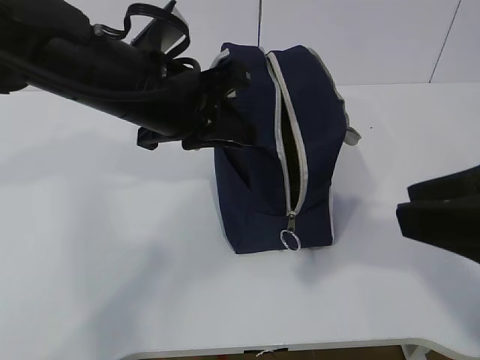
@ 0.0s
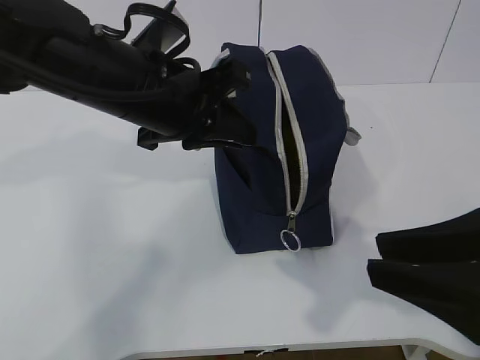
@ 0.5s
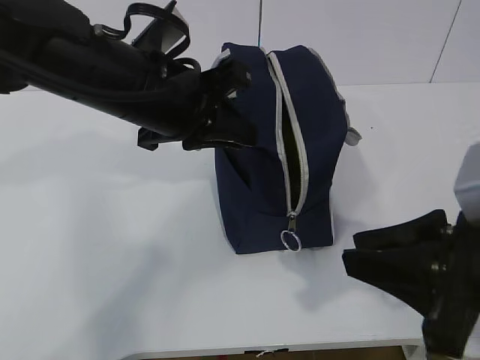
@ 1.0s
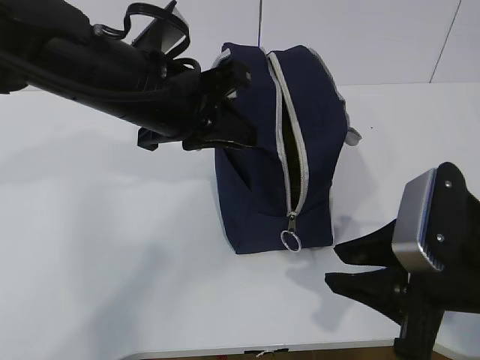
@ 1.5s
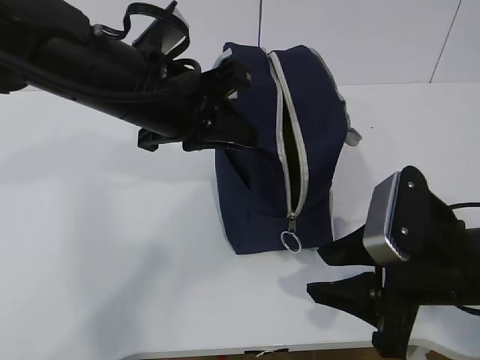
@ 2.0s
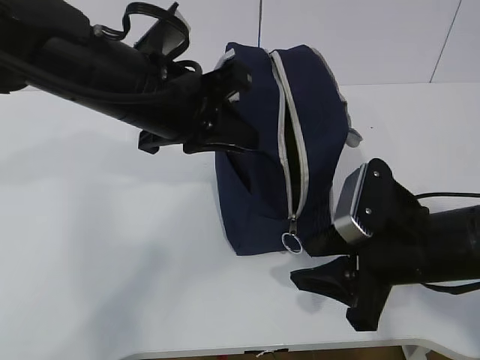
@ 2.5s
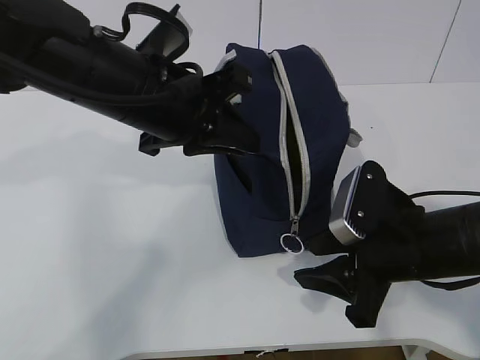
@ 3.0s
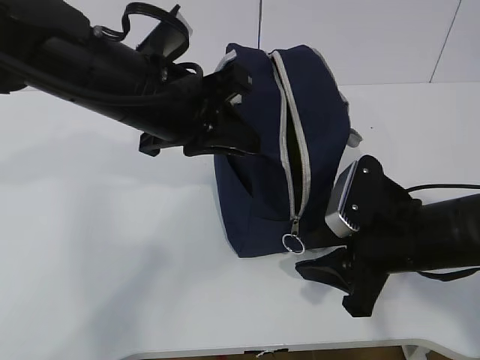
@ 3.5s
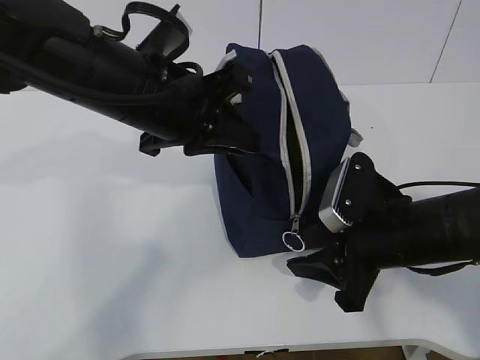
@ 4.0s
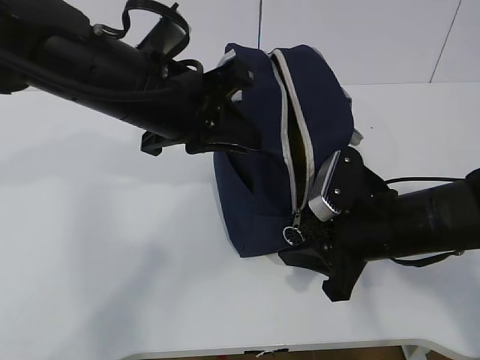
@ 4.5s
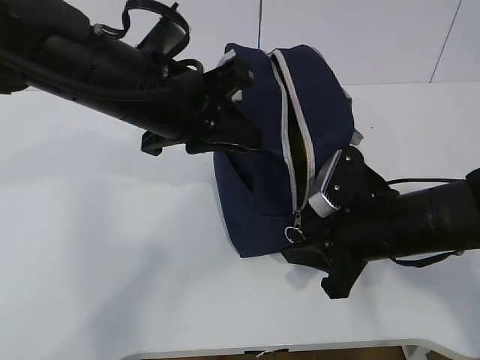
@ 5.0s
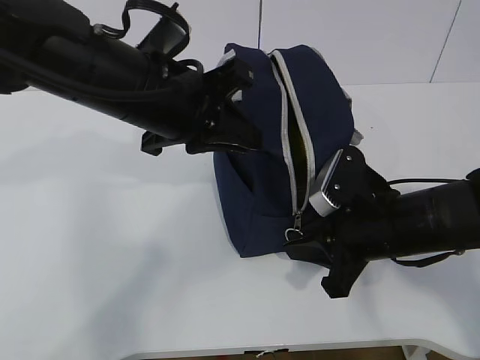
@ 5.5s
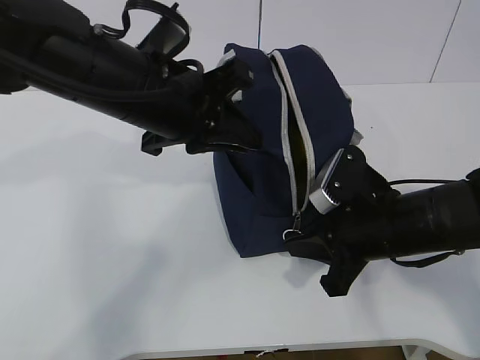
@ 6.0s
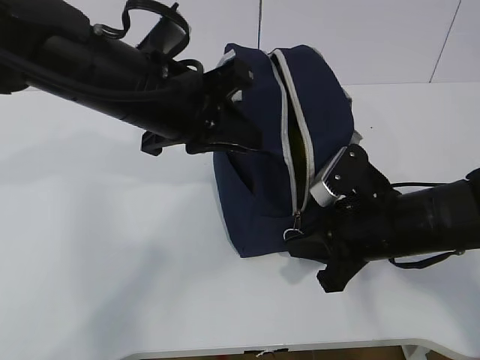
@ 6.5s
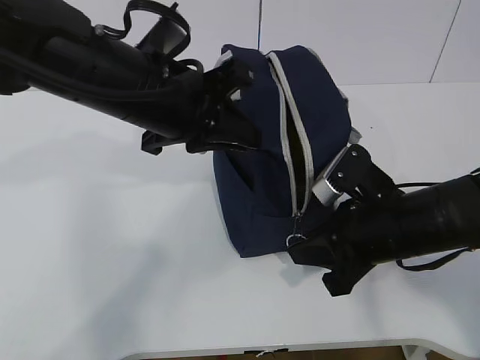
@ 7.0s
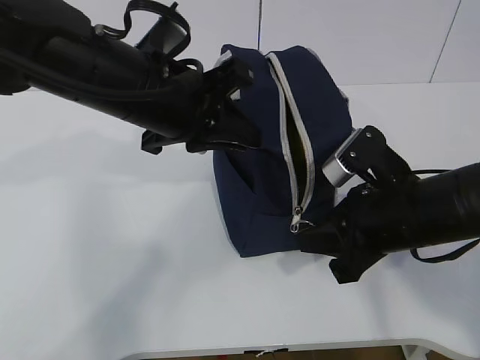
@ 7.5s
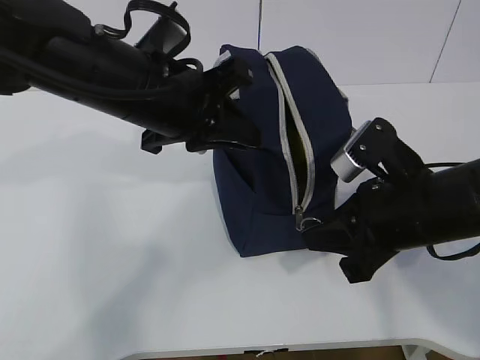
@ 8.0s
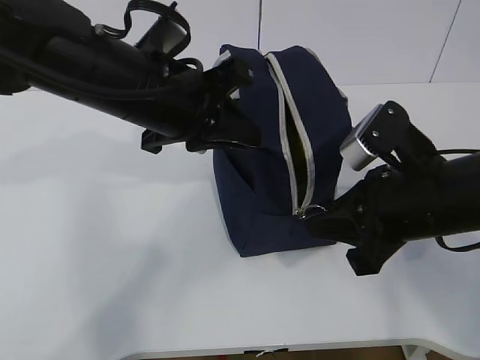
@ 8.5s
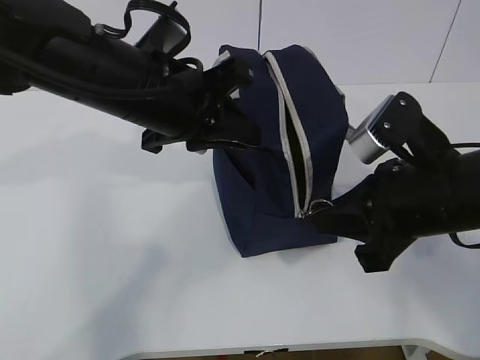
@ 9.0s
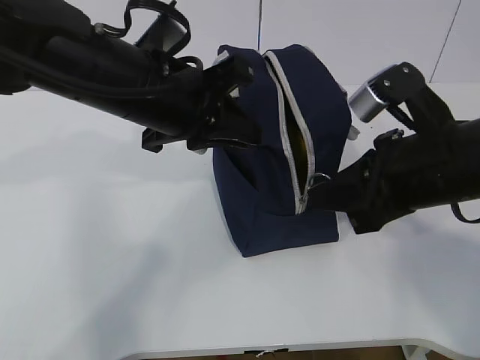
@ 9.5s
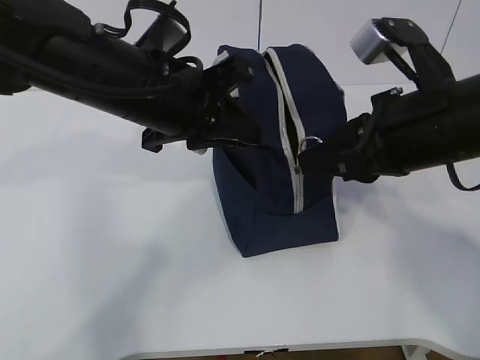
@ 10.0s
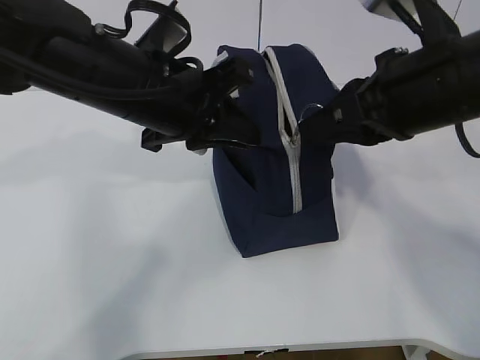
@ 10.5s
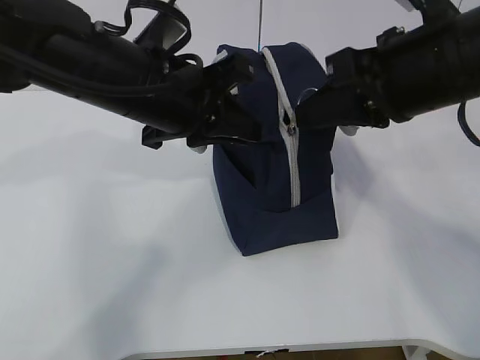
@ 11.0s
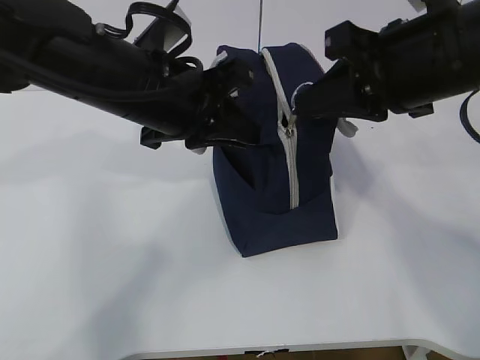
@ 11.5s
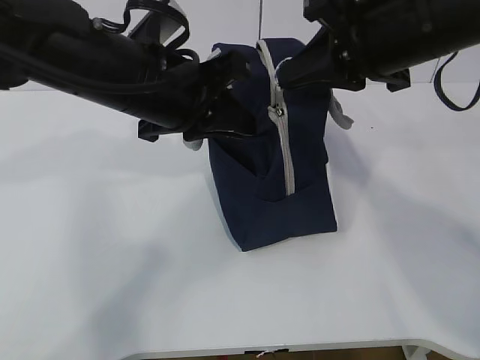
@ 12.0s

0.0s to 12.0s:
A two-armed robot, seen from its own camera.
0.0s to 2.0s: The right gripper moves downward and forward, roughly 15 cm.
2.0s to 4.0s: The right gripper is displaced forward by about 5 cm.
4.0s to 6.0s: The right gripper closes its fingers.
6.0s to 8.0s: The right gripper changes place by some 5 cm.
8.0s to 10.0s: The right gripper heads upward, covering about 10 cm.
10.0s to 12.0s: The right gripper heads upward, covering roughly 5 cm.

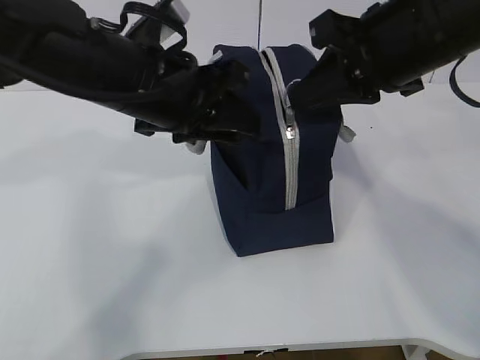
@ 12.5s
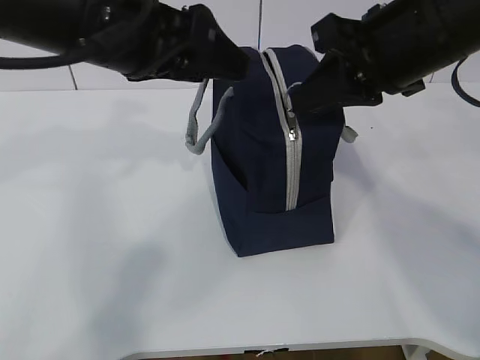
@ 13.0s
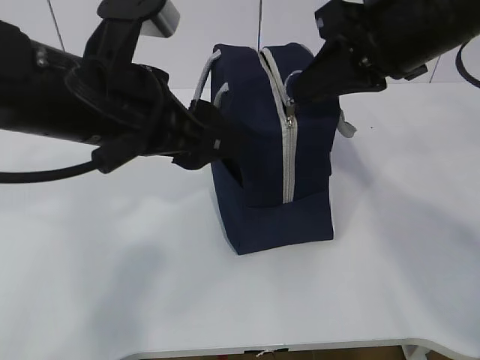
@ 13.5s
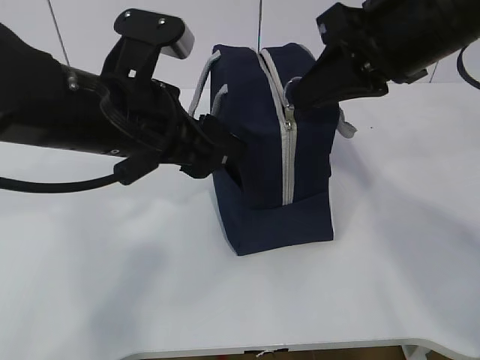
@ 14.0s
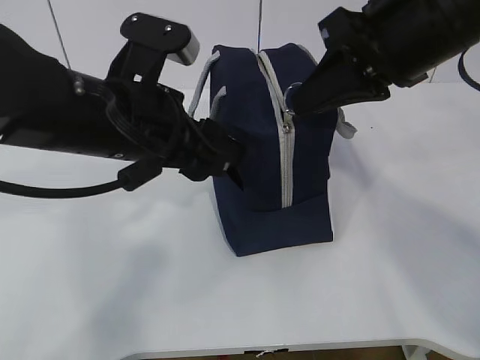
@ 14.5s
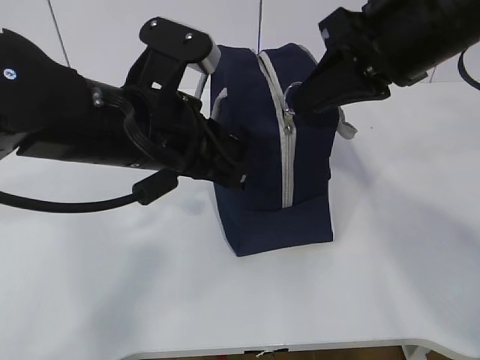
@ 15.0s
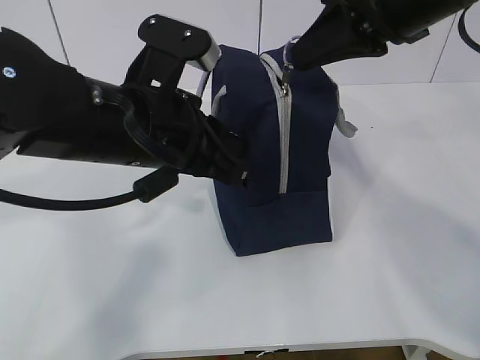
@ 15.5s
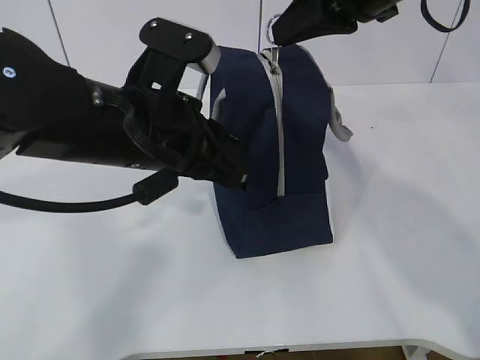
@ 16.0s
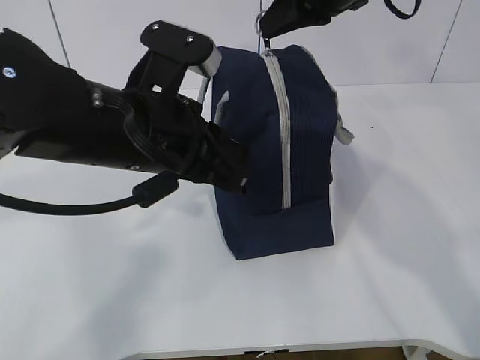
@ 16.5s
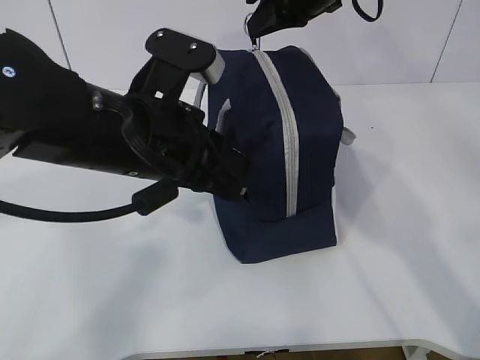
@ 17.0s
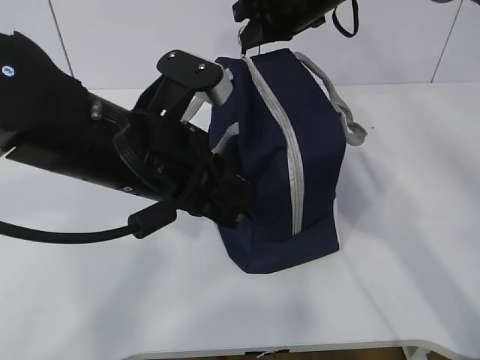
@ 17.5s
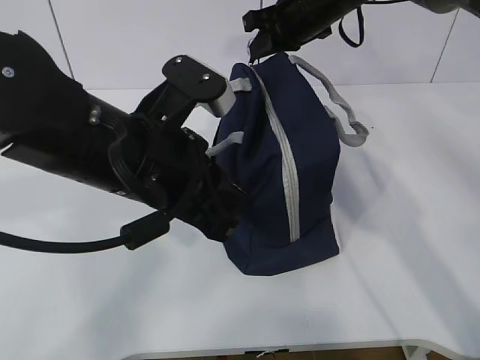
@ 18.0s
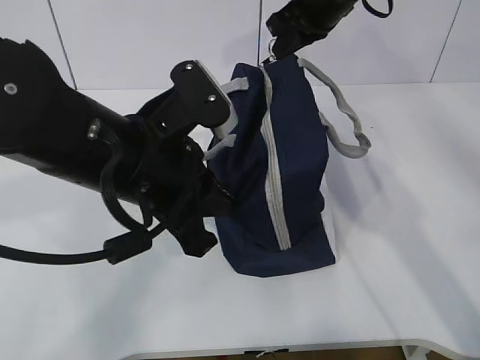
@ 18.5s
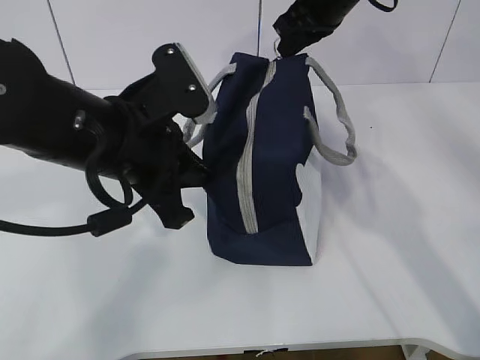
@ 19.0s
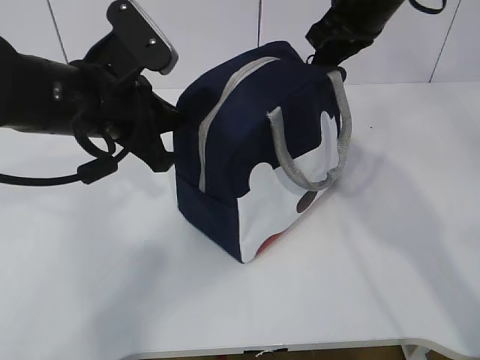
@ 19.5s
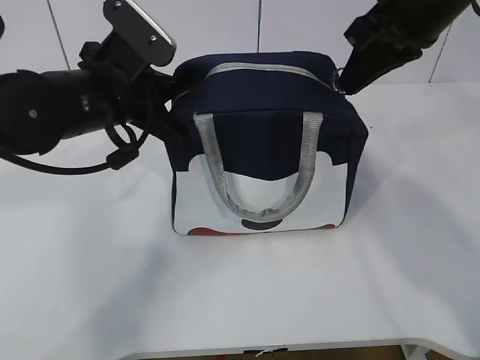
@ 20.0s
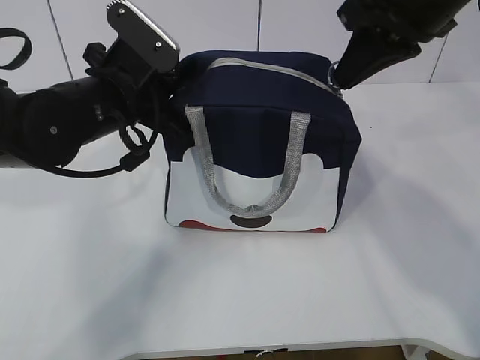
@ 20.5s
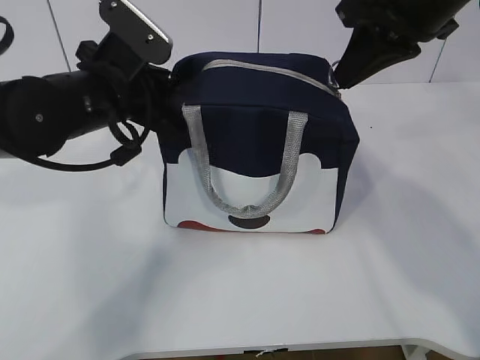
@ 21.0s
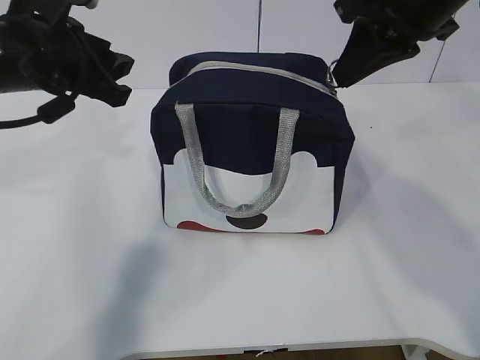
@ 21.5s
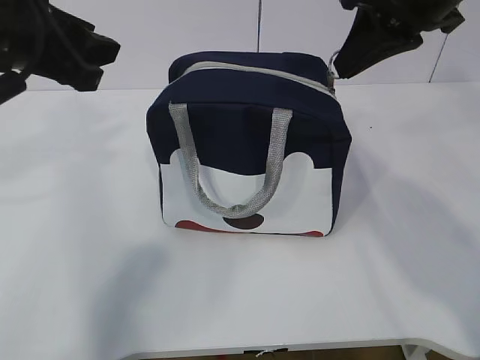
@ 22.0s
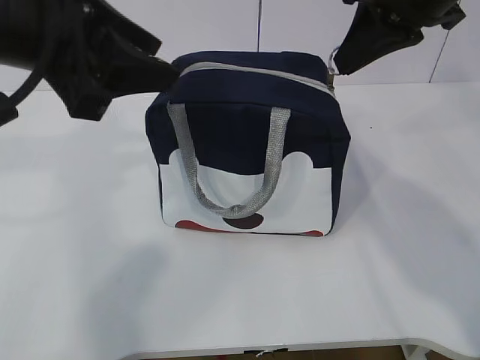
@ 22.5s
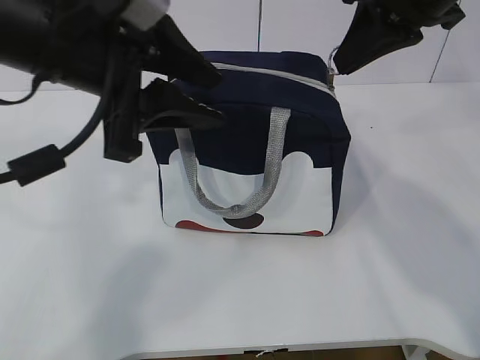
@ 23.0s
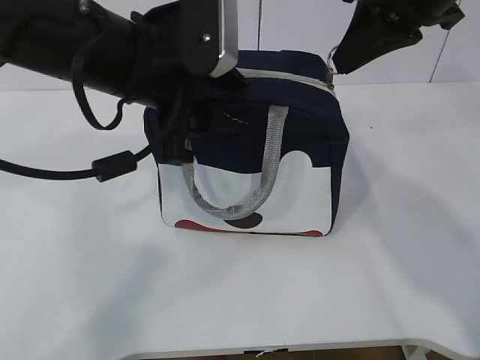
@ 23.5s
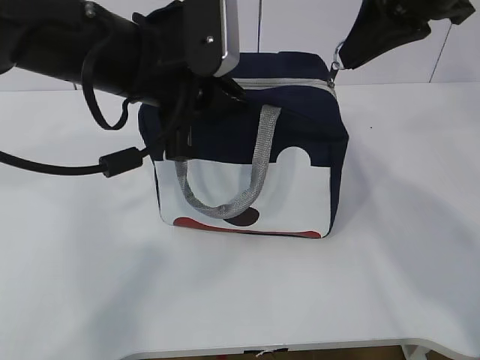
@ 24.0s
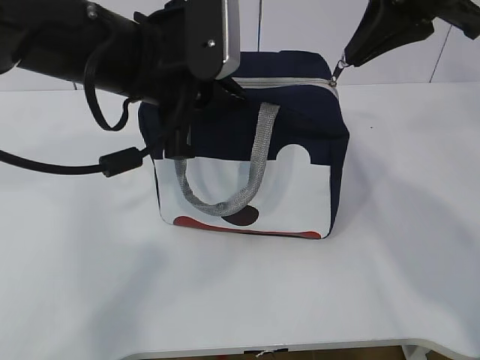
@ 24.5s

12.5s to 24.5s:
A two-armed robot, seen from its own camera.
Step, 14.0s to 14.5s: Grab the lunch bag with your left hand.
12.5s to 14.5s: The left gripper moves some 5 cm upward and comes back.
14.5s to 16.5s: The left gripper closes its fingers, while the right gripper travels forward by about 10 cm.
16.5s to 18.5s: The right gripper is displaced forward by roughly 10 cm.
18.5s to 20.5s: The left gripper shifts some 10 cm forward, while the right gripper is displaced backward by roughly 15 cm.
20.5s to 22.5s: The left gripper heads upward and backward, covering roughly 15 cm, and opens.
22.5s to 24.5s: The left gripper is displaced to the right, downward and forward by roughly 10 cm, and closes up.

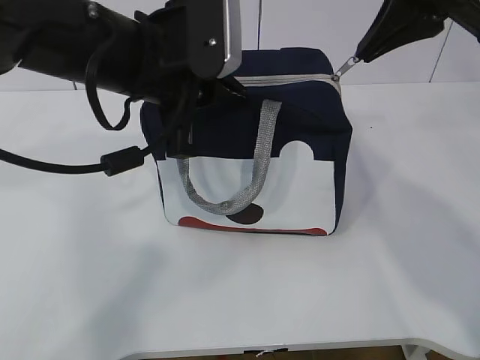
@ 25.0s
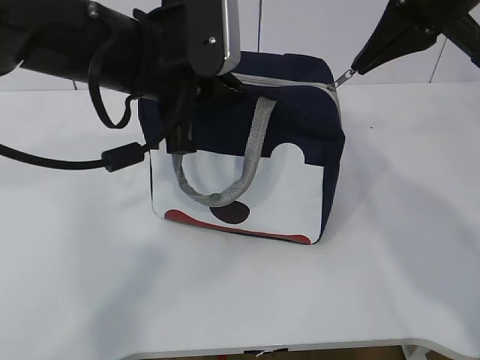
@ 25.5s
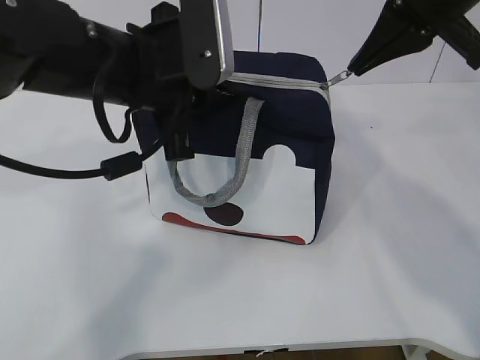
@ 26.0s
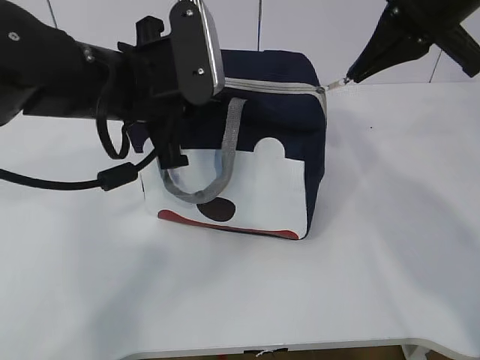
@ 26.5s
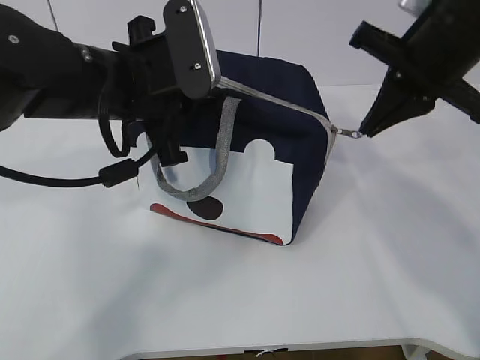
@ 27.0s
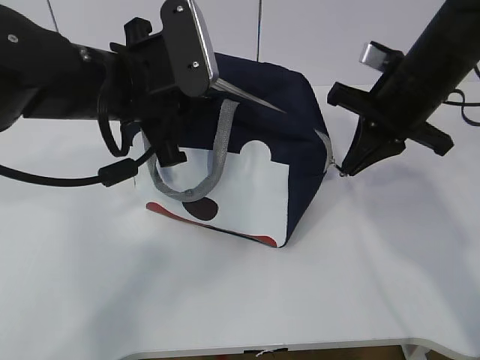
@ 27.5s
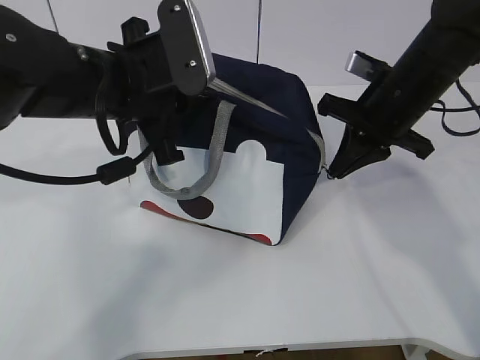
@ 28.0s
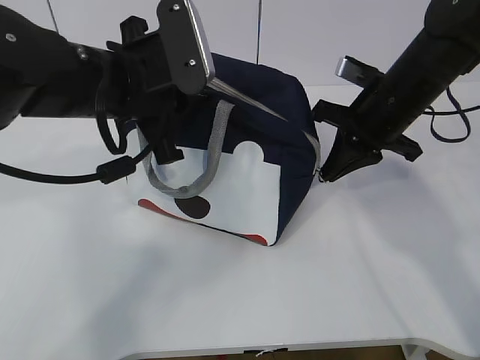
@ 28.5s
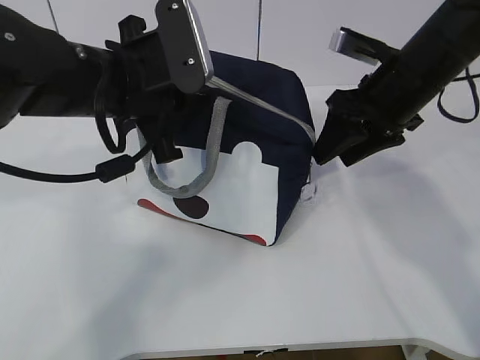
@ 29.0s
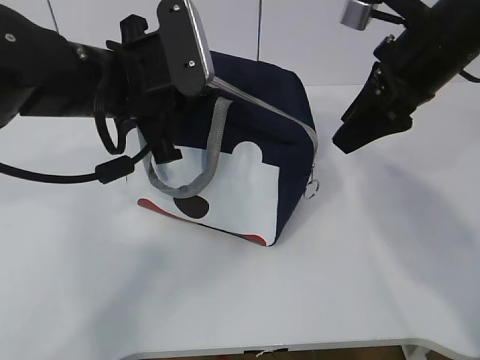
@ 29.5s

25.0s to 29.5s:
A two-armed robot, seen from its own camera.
25.0s to 27.0s: The right gripper moves downward, some 5 cm.
27.0s to 29.5s: The right gripper moves about 10 cm downward and comes back, and opens its fingers.
